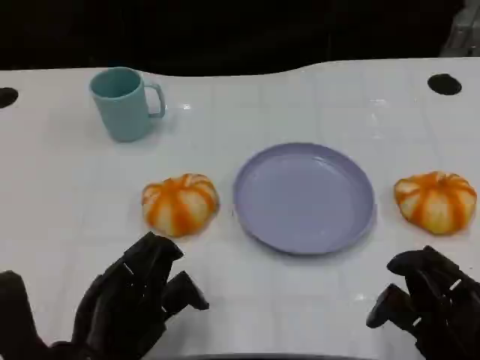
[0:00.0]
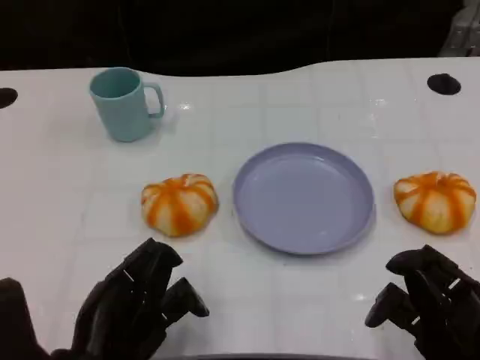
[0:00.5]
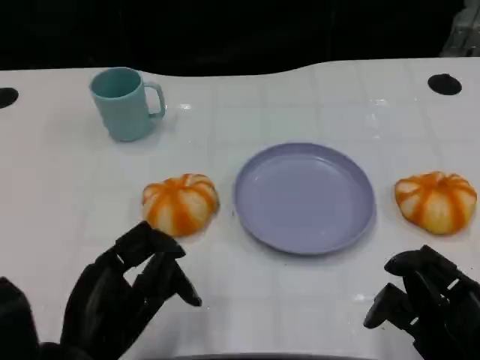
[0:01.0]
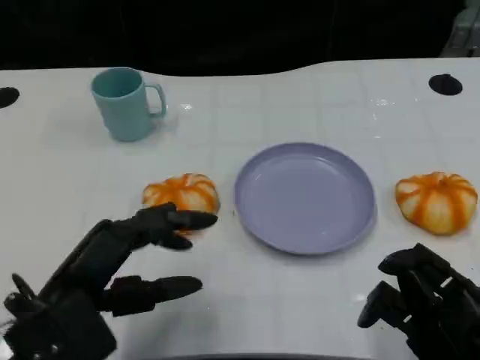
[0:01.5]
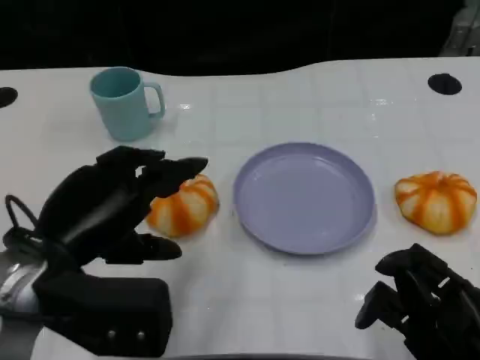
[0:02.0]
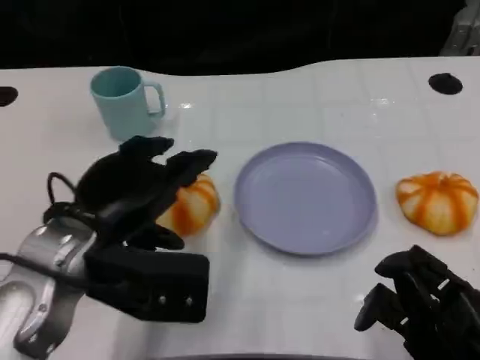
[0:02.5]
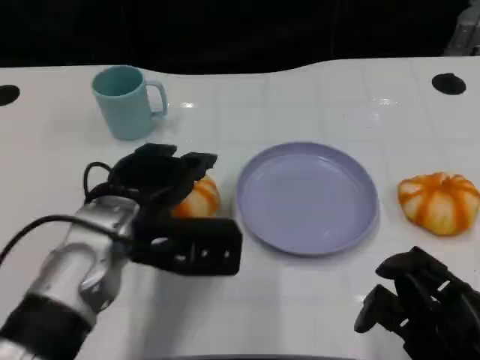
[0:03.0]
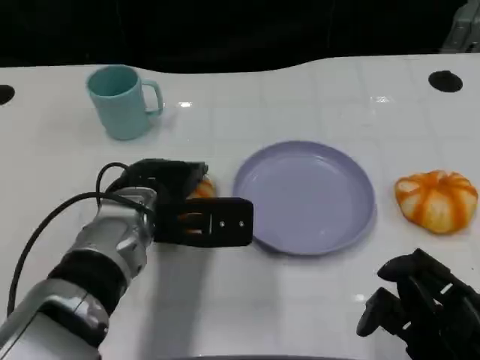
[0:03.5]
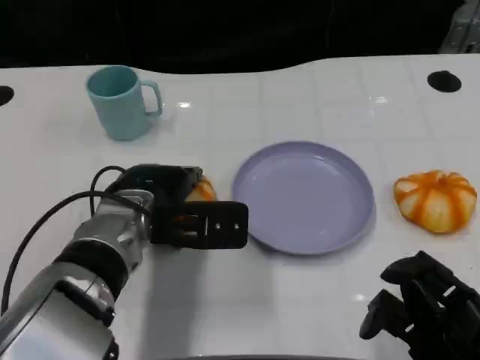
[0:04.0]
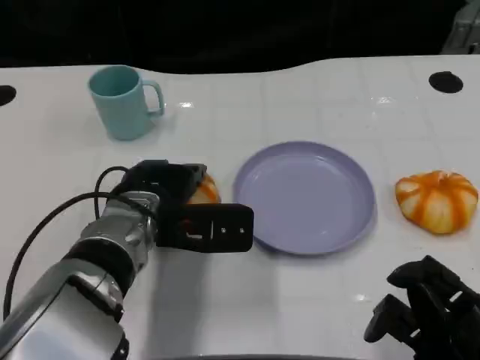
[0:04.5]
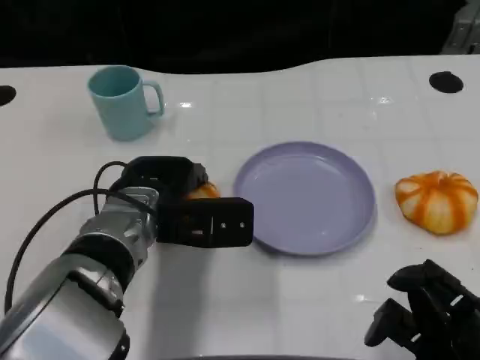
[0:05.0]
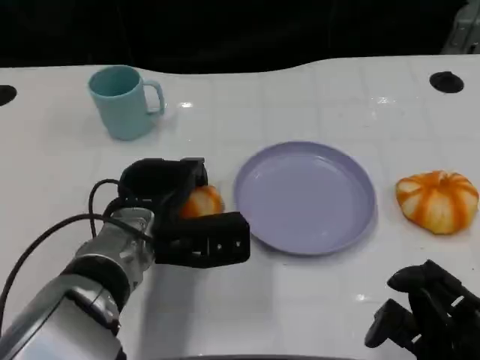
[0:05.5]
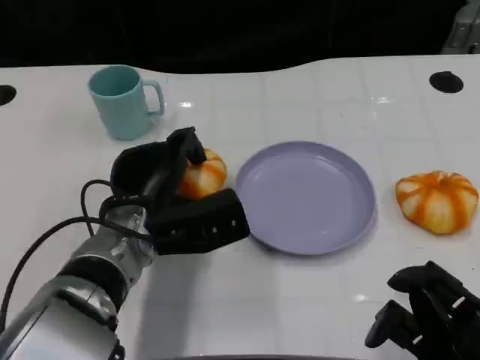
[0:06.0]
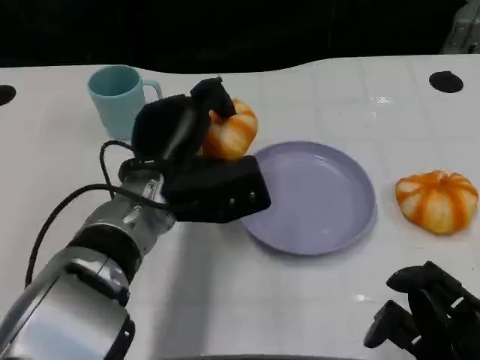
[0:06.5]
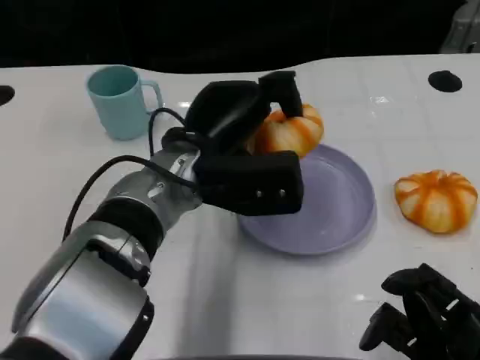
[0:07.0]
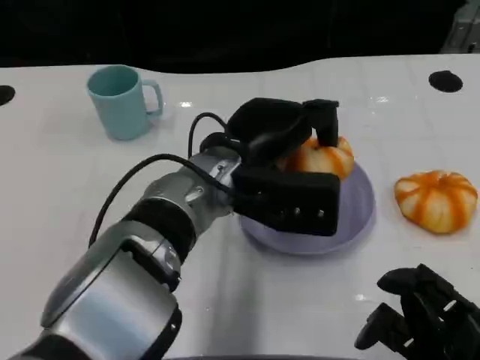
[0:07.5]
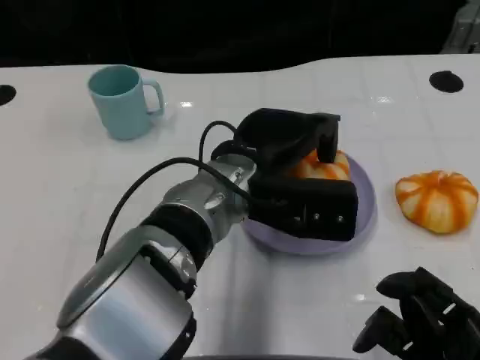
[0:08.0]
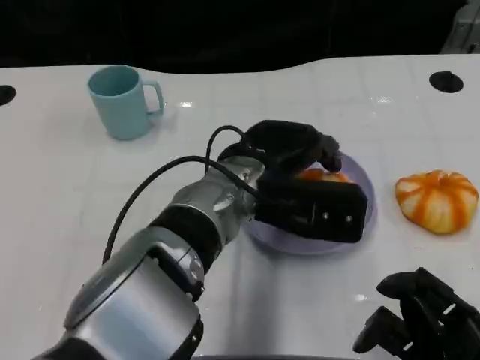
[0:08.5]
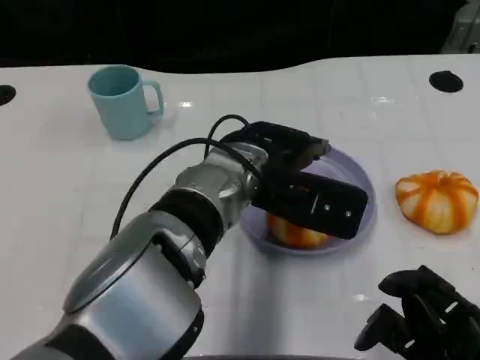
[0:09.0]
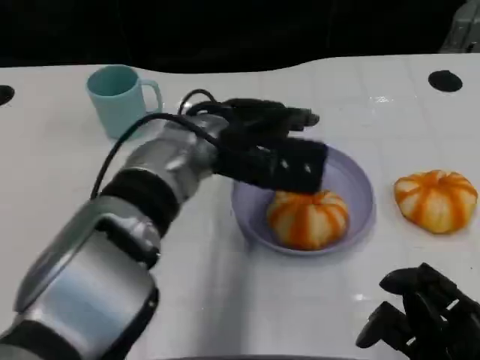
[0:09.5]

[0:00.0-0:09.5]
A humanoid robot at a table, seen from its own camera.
Task of the whole recording: Grasp the bread from the table and place it into the plate.
0:00.0 to 0:02.0: The left hand goes approximately 10 cm upward and forward.
0:02.0 to 0:04.0: The left hand heads forward, to the right and downward, covering approximately 15 cm.
0:04.0 to 0:05.5: The hands stay close to where they were, moving slightly.
0:05.5 to 0:07.5: The left hand goes about 10 cm to the right and upward.

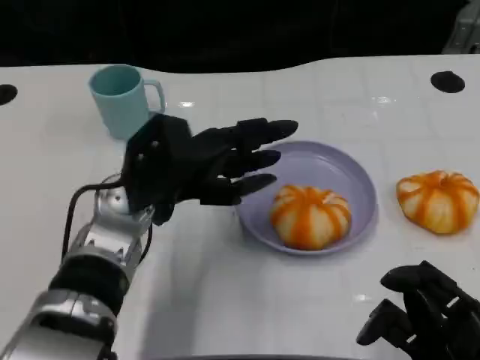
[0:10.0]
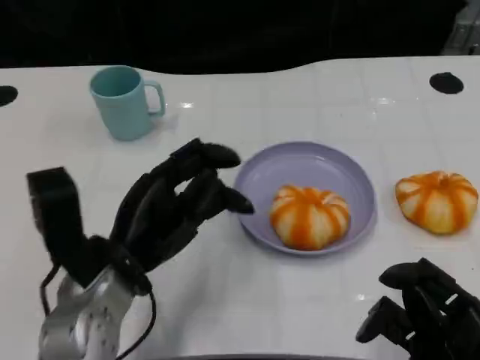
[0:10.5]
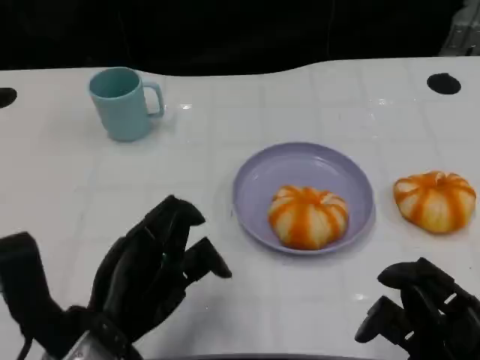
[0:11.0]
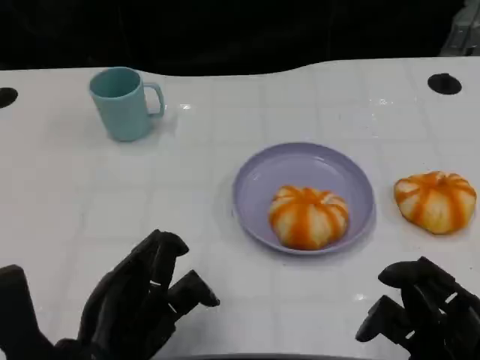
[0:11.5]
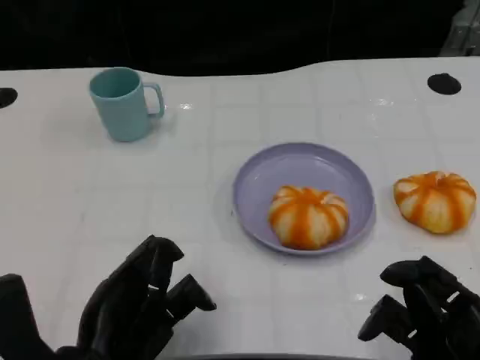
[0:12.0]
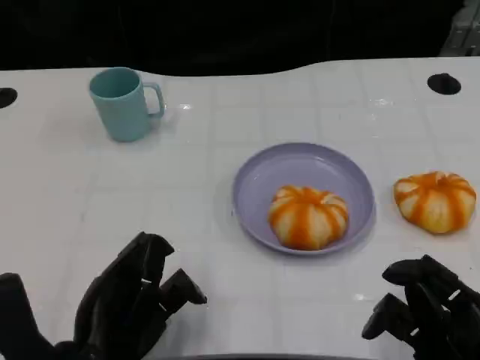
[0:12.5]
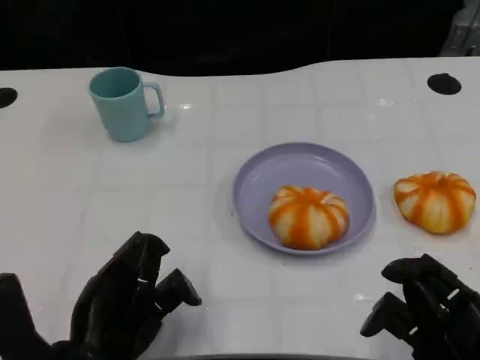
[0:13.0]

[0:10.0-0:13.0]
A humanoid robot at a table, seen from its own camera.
Task of the whole recording: Grasp the bread from the table and place it into the plate.
0:10.0 to 0:11.5: The left hand moves backward, some 15 cm.
0:11.5 to 0:13.0: There are only small adjustments of the hands.

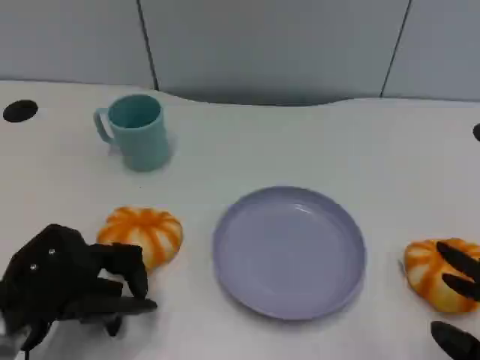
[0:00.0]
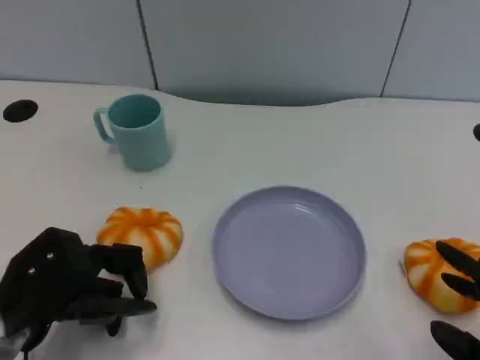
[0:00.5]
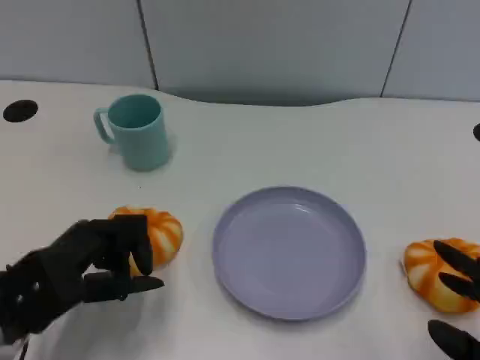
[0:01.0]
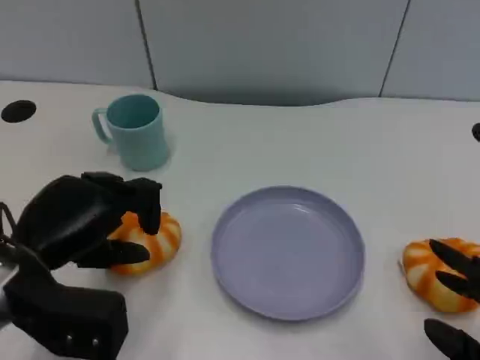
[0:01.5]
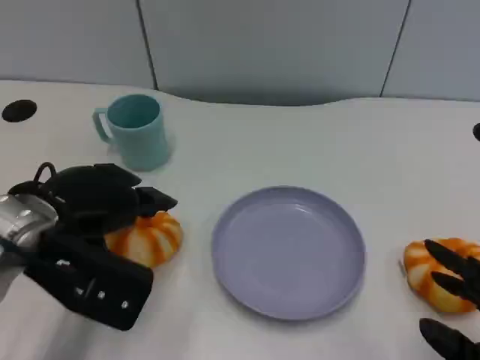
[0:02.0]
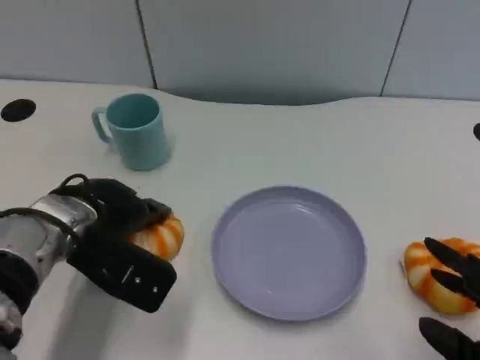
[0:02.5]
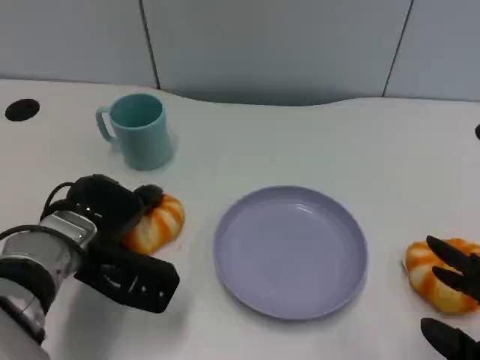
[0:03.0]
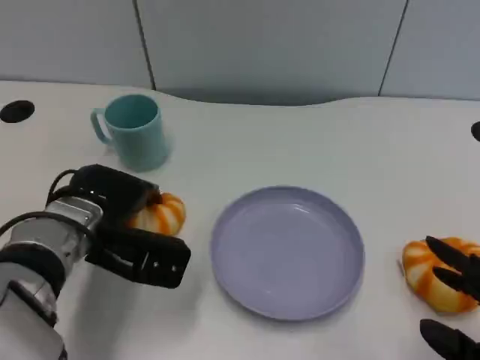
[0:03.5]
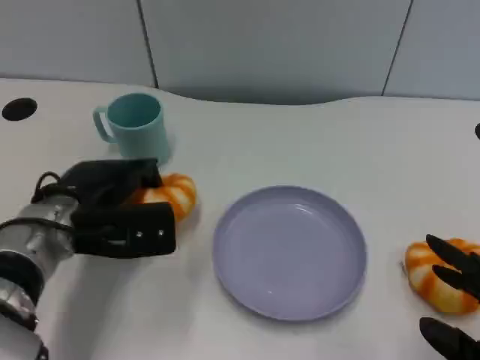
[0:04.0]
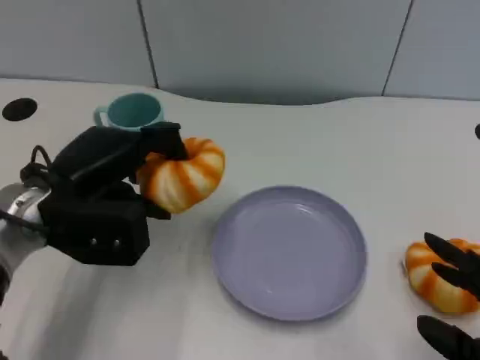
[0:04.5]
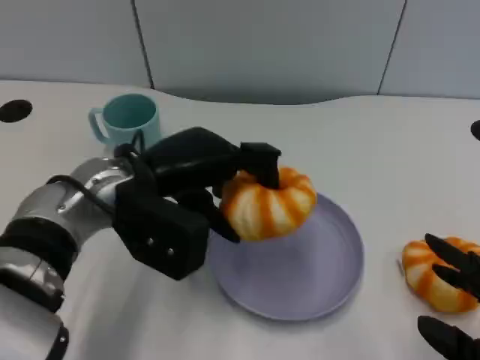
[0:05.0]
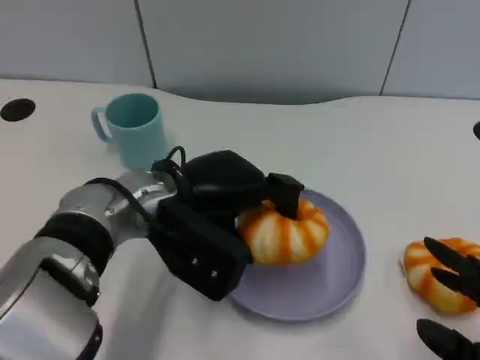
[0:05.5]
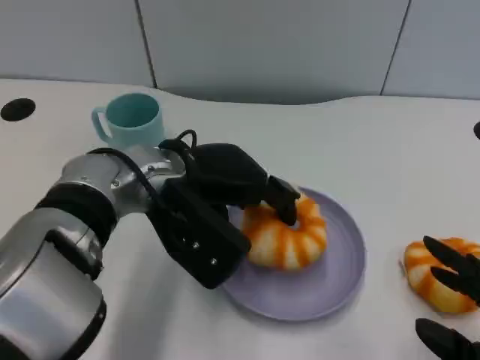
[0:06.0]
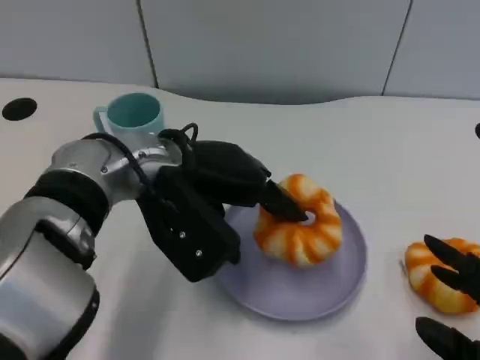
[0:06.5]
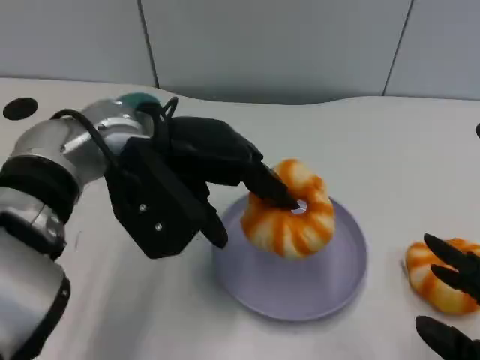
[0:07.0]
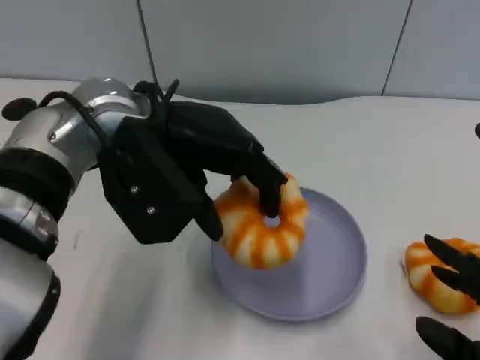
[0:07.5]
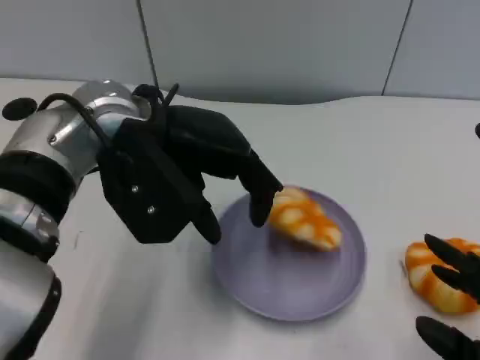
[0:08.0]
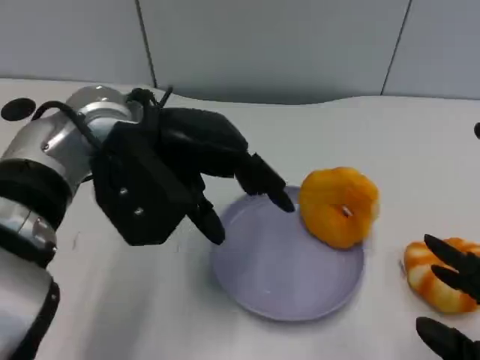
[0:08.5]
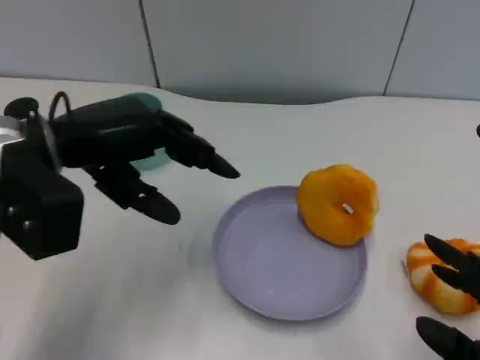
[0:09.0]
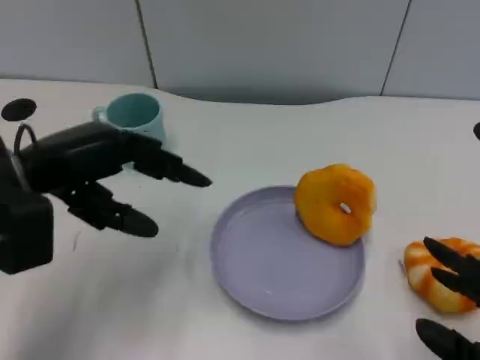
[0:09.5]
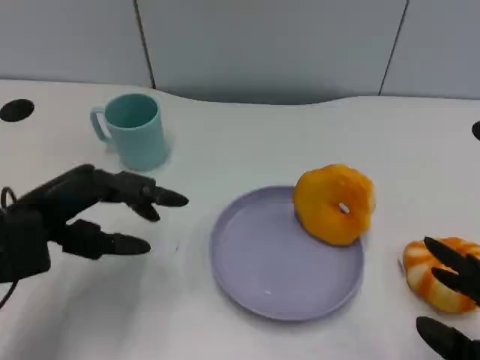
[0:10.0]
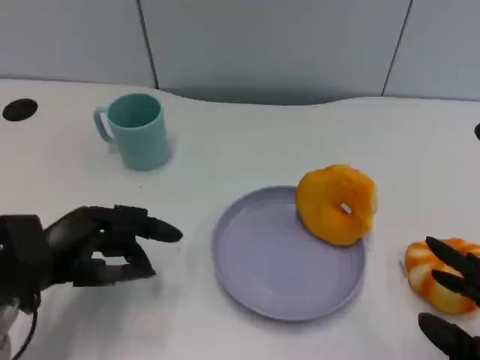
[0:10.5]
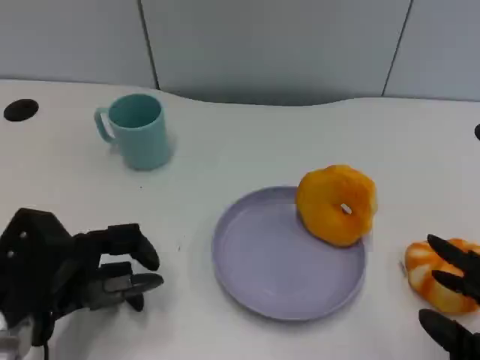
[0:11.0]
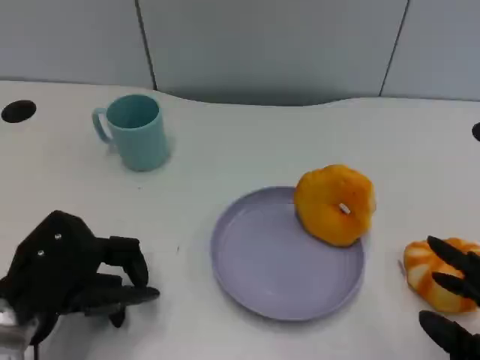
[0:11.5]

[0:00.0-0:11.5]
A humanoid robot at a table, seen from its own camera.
Task of the whole recording: Grasp the bread from the table and place it into the plate.
0:00.0 to 0:02.0: The left hand shifts approximately 10 cm upward and forward.
0:02.0 to 0:04.0: The left hand is displaced downward by about 5 cm.
0:04.0 to 0:06.0: The left hand is displaced to the right and upward by roughly 10 cm.
0:06.0 to 0:07.5: The left hand shifts approximately 5 cm upward.
0:07.5 to 0:09.5: The left hand shifts some 10 cm to the left.
0:09.5 to 0:11.5: The left hand goes some 10 cm downward and backward.

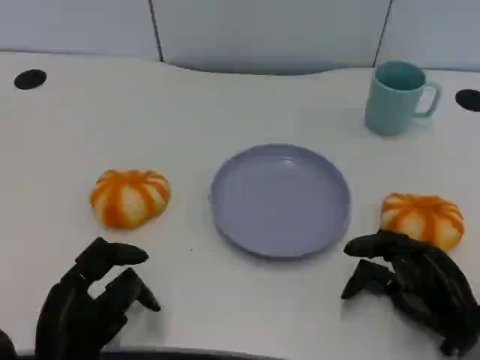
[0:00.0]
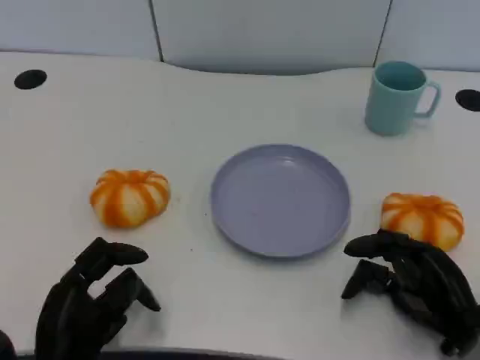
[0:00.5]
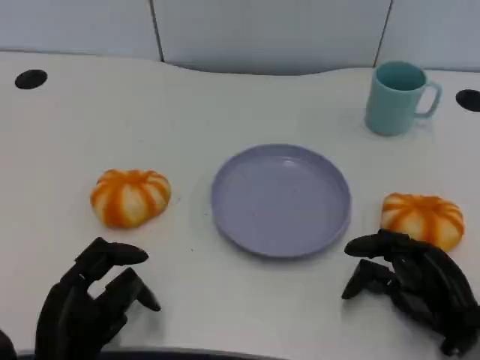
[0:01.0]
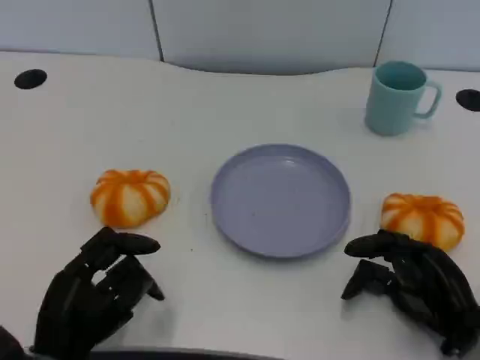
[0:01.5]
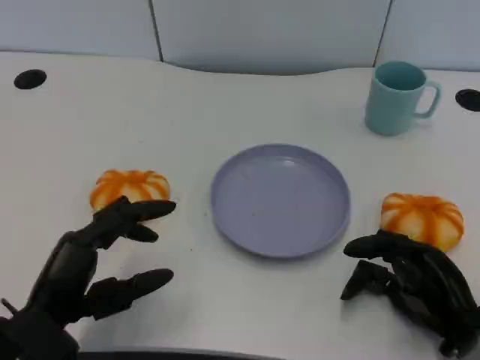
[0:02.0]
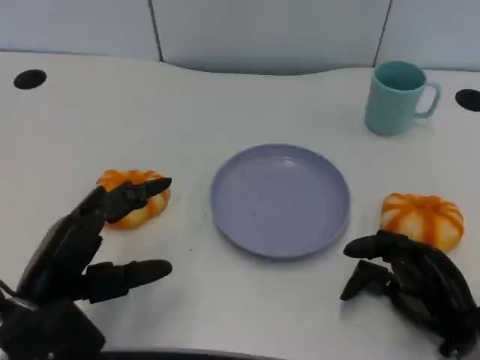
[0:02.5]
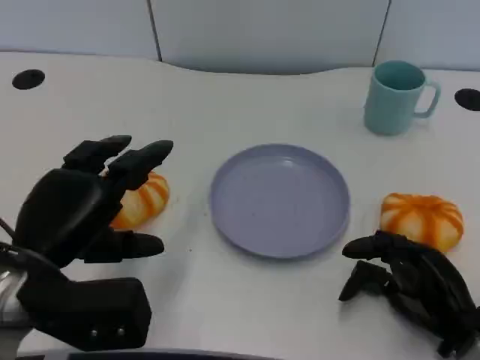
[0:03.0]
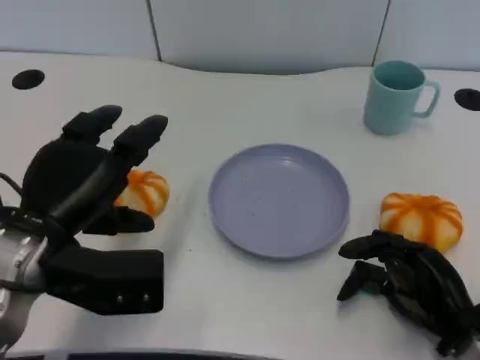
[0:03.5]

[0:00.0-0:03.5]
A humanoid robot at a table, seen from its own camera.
Task of the whole recording: Grasp the bread from the table and place it into the plate.
0:00.0 to 0:02.0: The left hand shifts about 5 cm upward.
0:02.0 to 0:03.5: The left hand moves upward and forward, roughly 10 cm.
